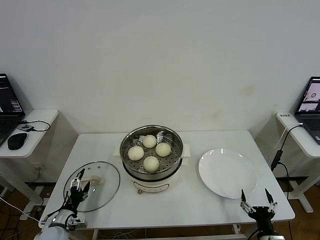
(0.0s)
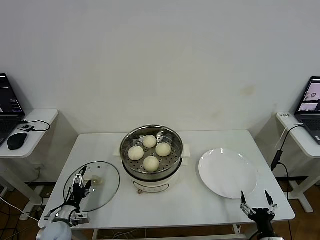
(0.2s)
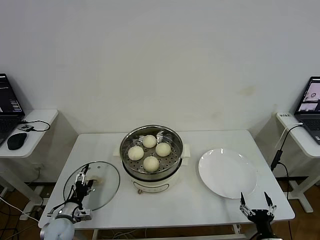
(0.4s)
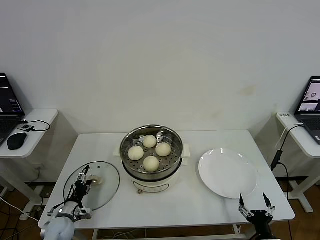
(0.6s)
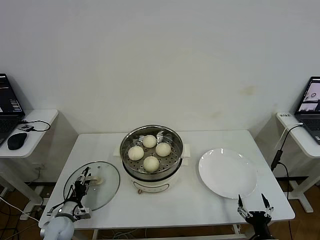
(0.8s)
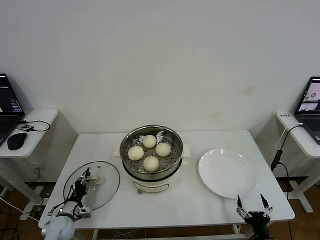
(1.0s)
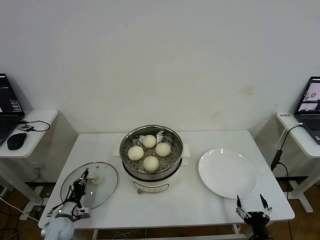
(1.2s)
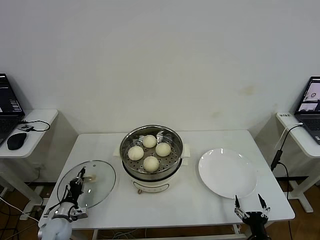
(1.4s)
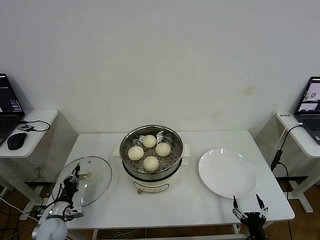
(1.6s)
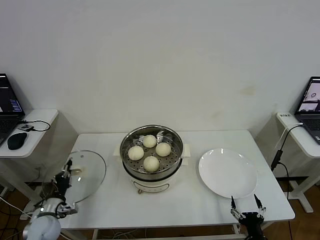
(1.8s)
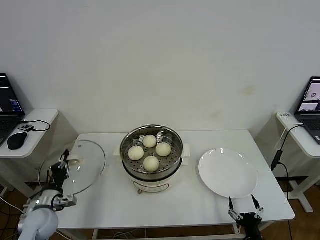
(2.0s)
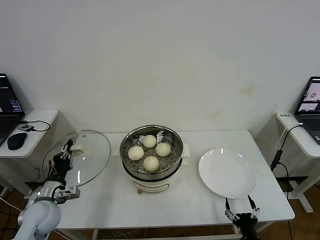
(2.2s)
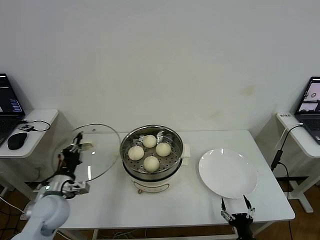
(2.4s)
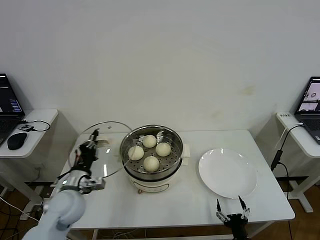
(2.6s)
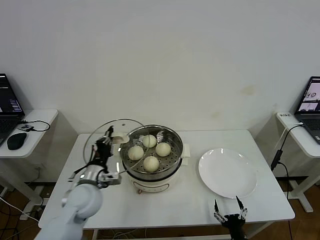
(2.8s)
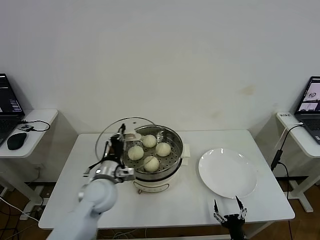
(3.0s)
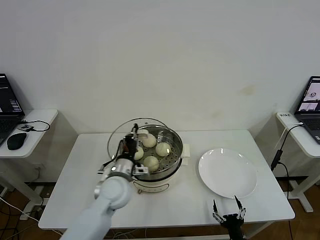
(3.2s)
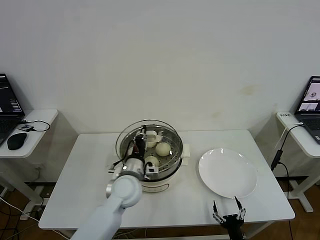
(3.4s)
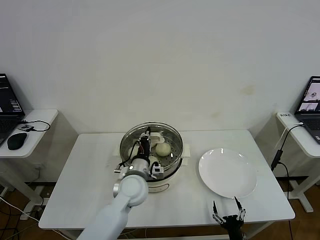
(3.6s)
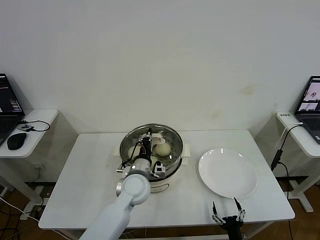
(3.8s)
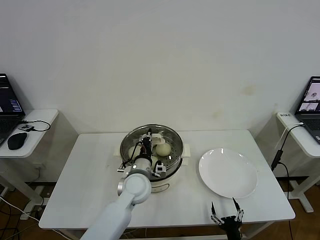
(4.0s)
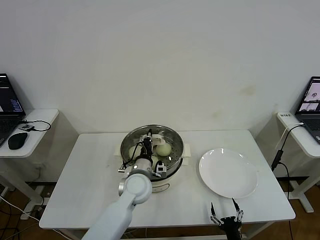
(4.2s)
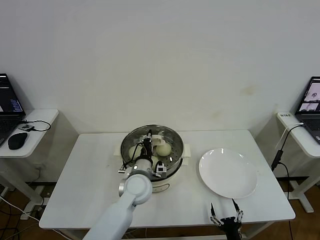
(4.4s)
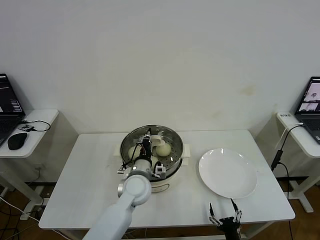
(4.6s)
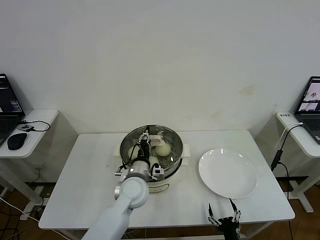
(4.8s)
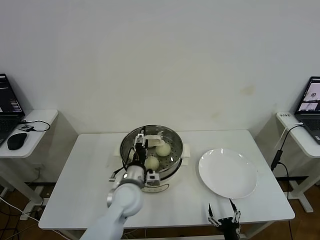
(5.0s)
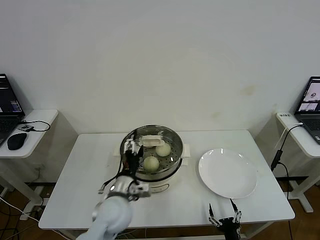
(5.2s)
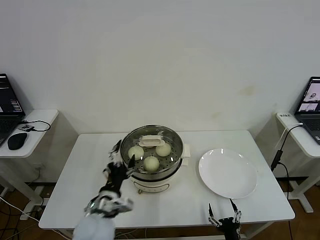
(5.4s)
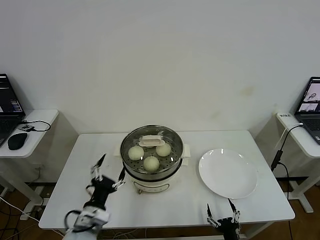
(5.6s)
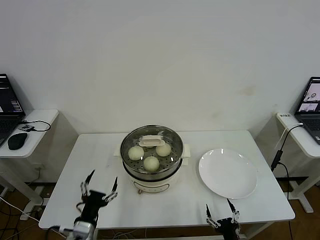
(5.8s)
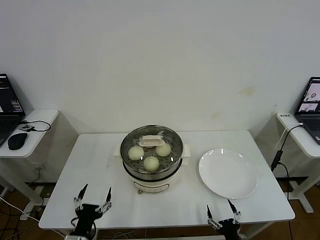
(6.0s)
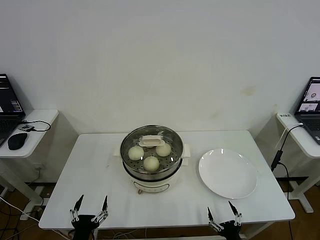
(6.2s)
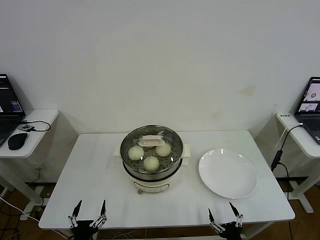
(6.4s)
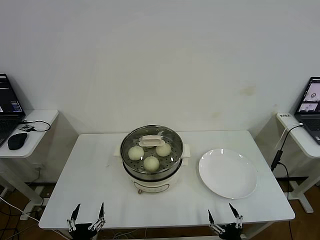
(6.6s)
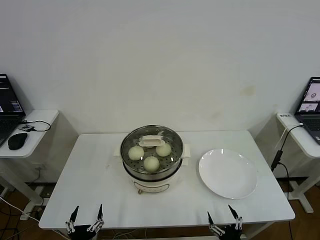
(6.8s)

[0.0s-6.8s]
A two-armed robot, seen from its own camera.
Step, 1.4s to 5.0s: Place the pot lid on the steamer with left gripper.
0.0s to 1.4s: The left gripper changes place by roughly 5 cm, and closes its fingers.
1.4s to 2.8s: The left gripper heads upward and to the right, covering roughly 25 cm, while the right gripper travels to the left by some 5 cm.
2.8s to 4.0s: The left gripper moves to the right, some 15 cm.
4.0s to 5.4s: The left gripper travels backward and to the left by roughly 15 cm, and opens up.
5.4s to 6.8s: The left gripper travels backward, downward and to the left by some 25 cm.

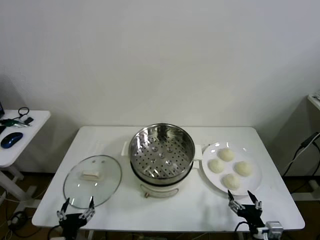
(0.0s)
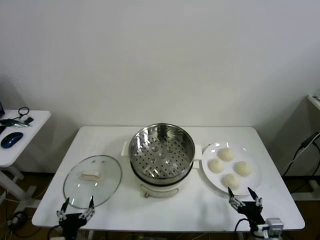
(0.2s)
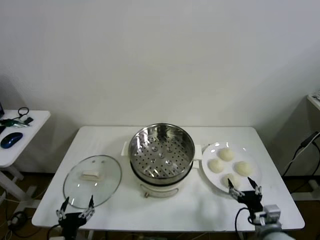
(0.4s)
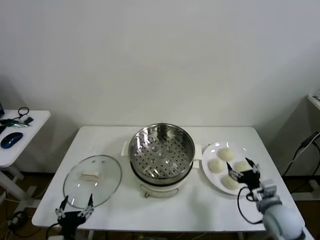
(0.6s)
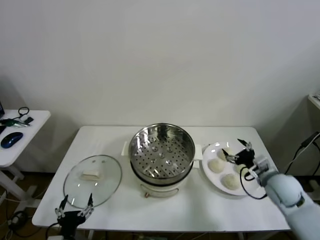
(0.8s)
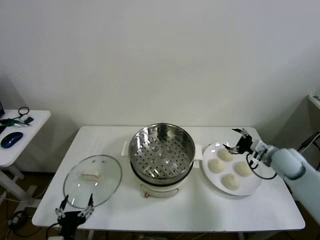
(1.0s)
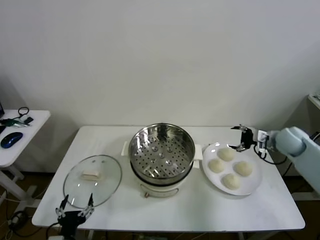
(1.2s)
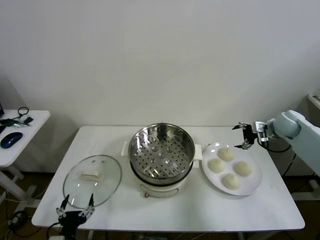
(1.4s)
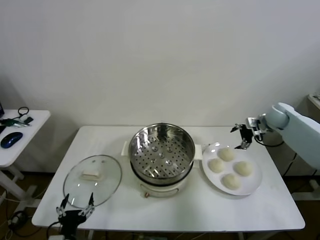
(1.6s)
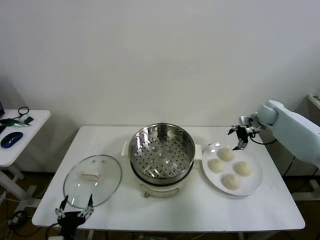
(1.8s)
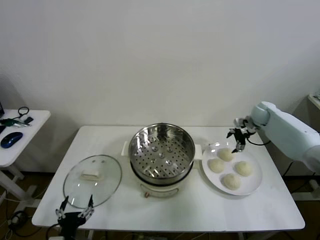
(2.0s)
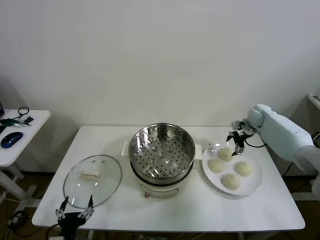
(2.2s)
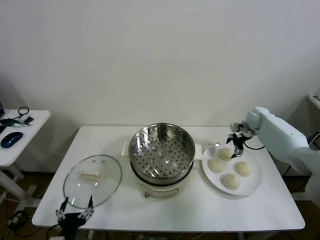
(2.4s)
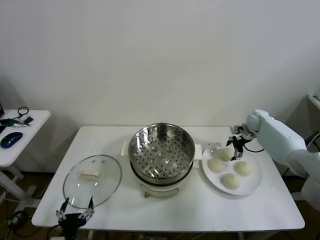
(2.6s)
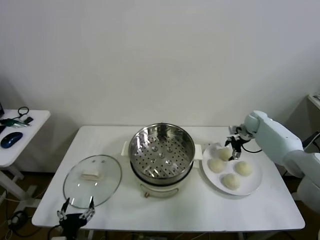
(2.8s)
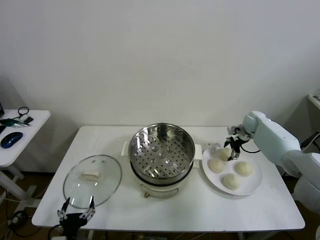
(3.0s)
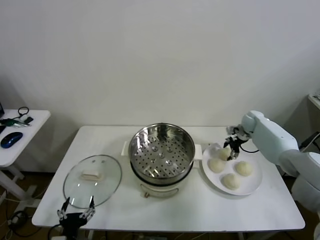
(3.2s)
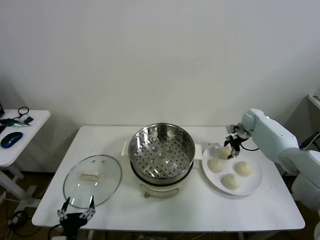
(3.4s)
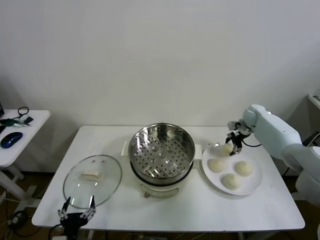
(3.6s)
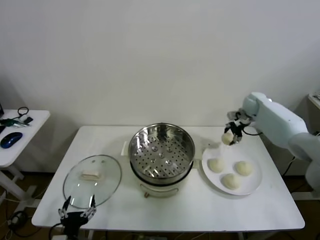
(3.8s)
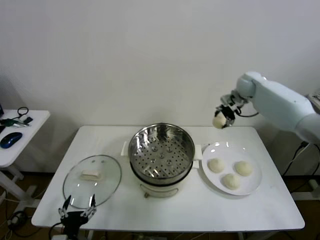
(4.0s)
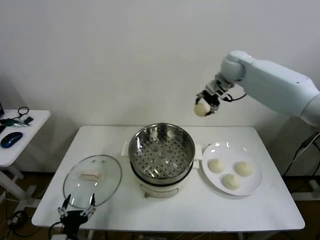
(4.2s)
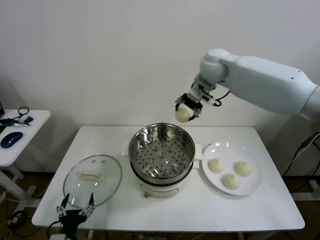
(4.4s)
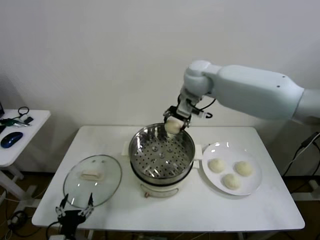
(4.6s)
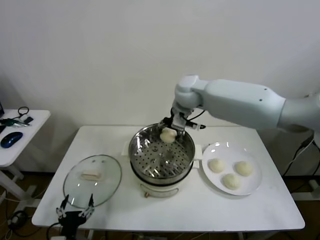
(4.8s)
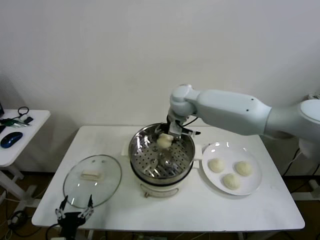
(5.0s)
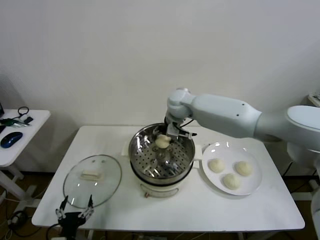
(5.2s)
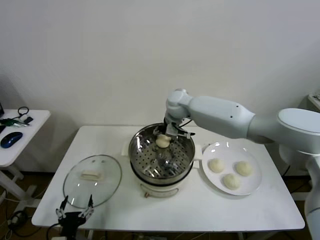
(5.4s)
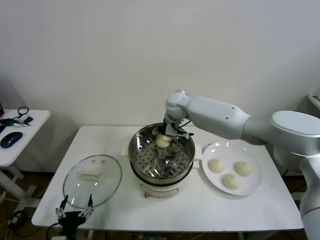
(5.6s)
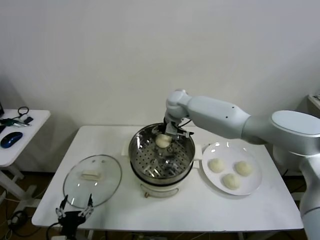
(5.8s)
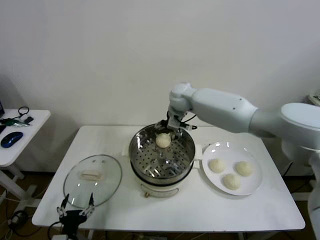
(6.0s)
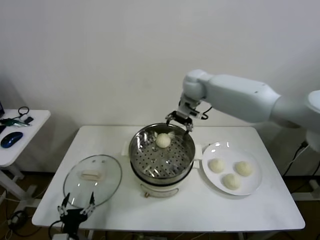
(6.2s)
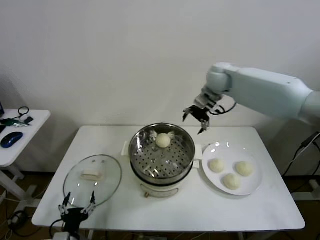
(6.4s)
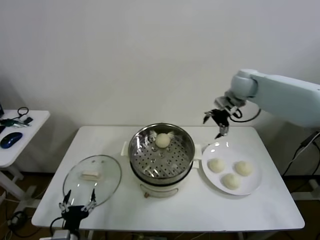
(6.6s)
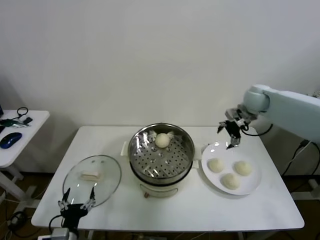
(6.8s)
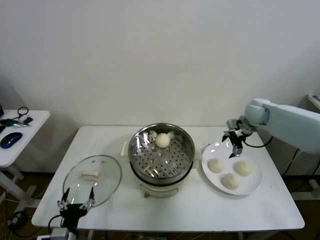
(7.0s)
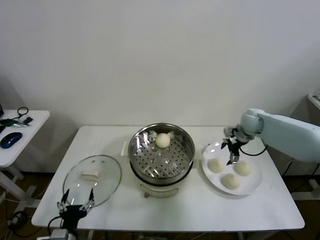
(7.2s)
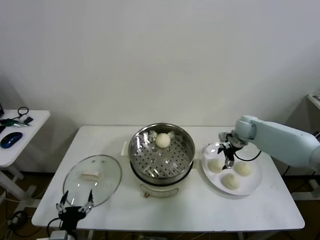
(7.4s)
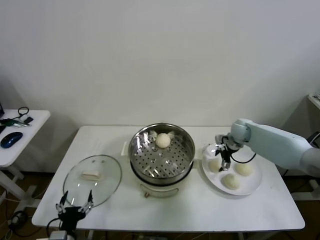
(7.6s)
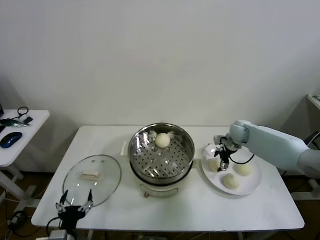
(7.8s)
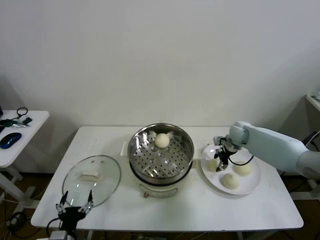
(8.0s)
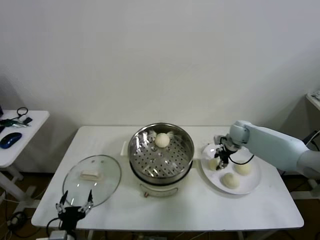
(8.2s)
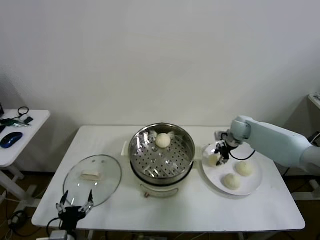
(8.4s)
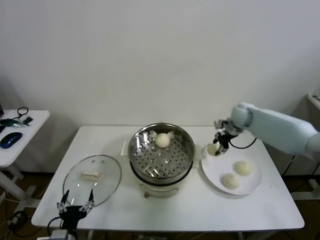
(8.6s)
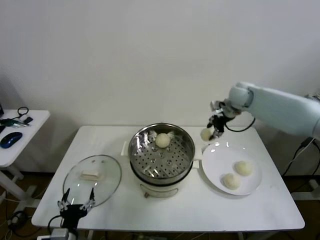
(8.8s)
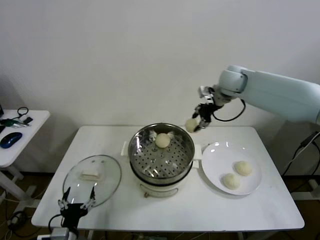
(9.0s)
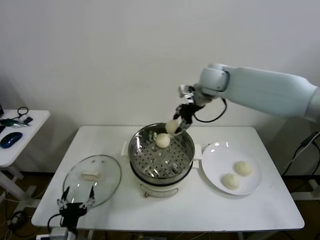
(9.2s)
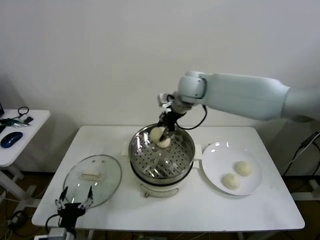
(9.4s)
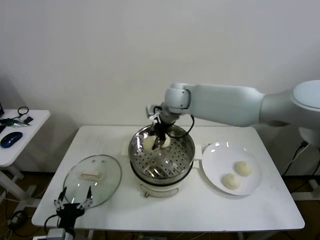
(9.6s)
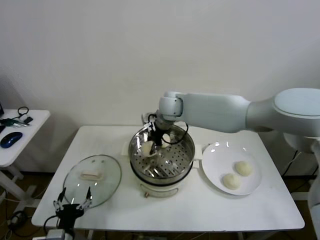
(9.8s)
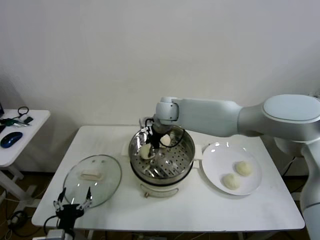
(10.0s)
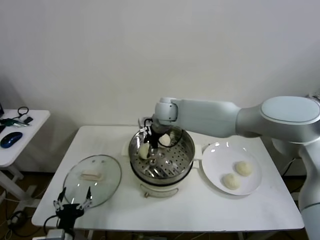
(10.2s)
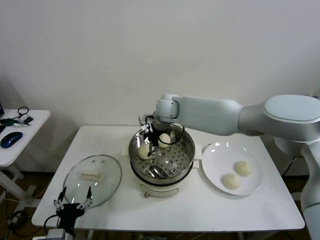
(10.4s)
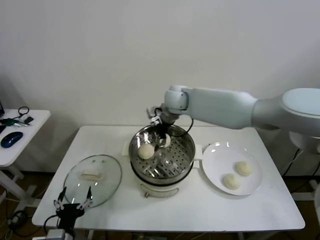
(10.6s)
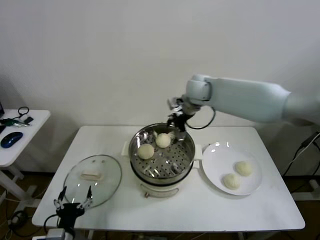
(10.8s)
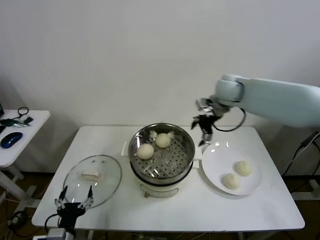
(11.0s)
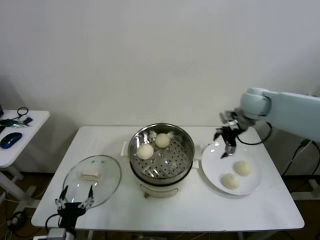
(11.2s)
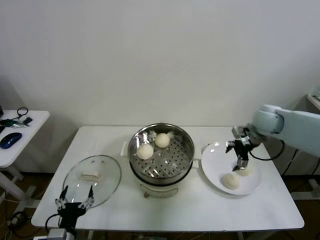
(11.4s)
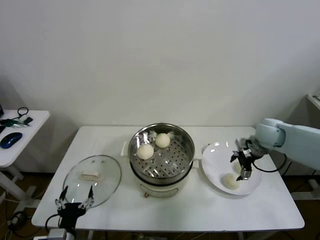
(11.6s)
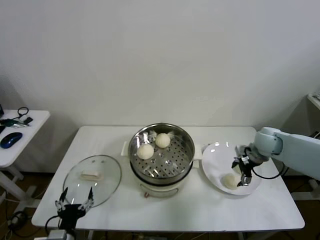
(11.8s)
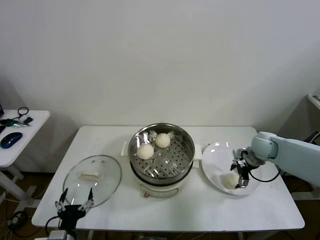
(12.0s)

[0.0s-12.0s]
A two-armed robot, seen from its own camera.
Step, 0.0s to 3.2s: Grasp the baozi in the plate with right gripper.
Step, 3.4s to 5.6s: Place the baozi on the steamer with right gripper.
Step, 5.8s to 8.0s: Grasp the baozi in the plate with right gripper.
Step, 8.2s to 10.2s: Place the baozi on the steamer with right gripper.
1.6s to 3.0s: The right gripper travels downward by some 10 cm.
3.0s to 4.4s: The right gripper moves upward and to the left, approximately 40 cm.
4.4s to 6.0s: The right gripper moves downward, some 10 cm, and opens up.
6.0s to 7.6s: The right gripper travels to the right and downward by about 30 cm.
7.6s to 9.0s: The right gripper moves upward and to the left, approximately 25 cm, and closes its fingers.
9.0s to 10.4s: The right gripper shifts approximately 20 cm to the left and downward, and opens its fingers.
10.4s to 12.0s: The right gripper moves to the right, about 35 cm.

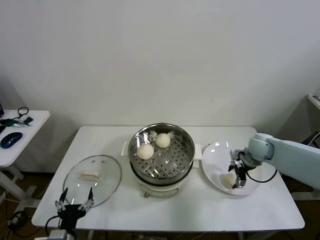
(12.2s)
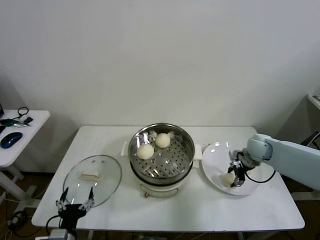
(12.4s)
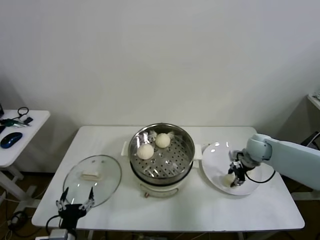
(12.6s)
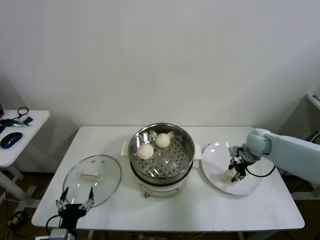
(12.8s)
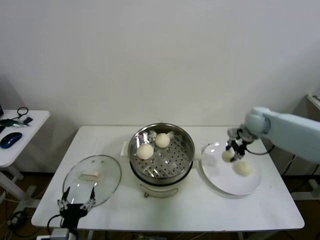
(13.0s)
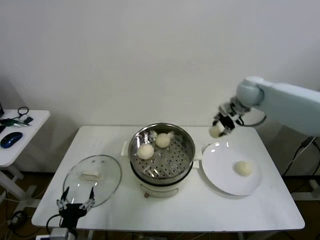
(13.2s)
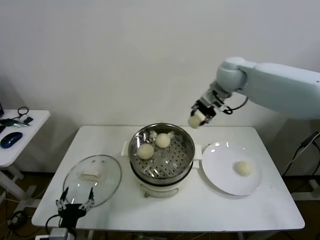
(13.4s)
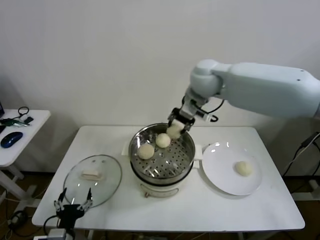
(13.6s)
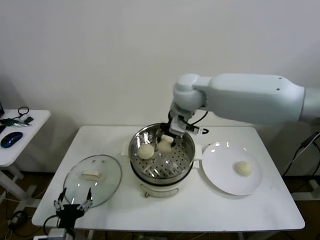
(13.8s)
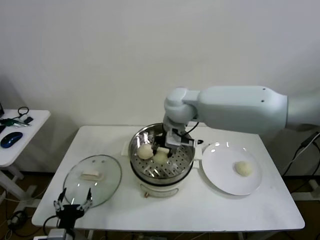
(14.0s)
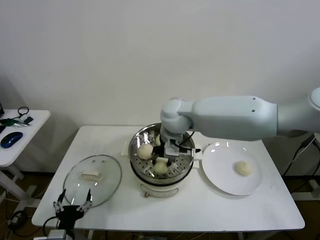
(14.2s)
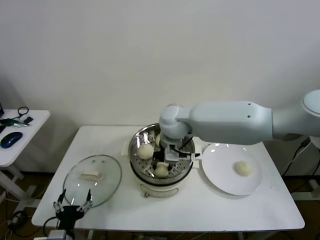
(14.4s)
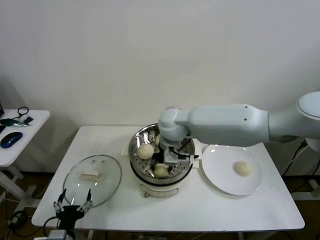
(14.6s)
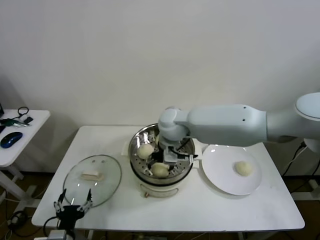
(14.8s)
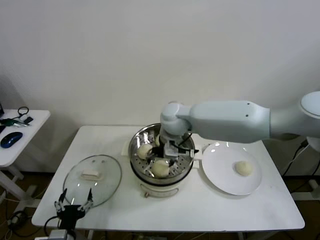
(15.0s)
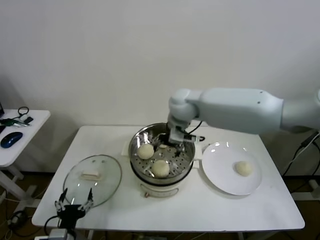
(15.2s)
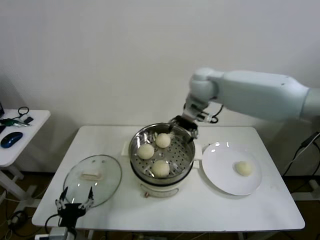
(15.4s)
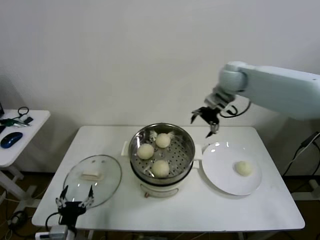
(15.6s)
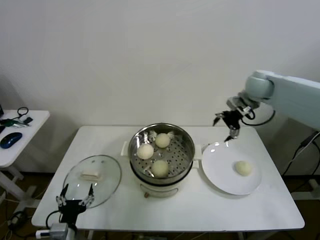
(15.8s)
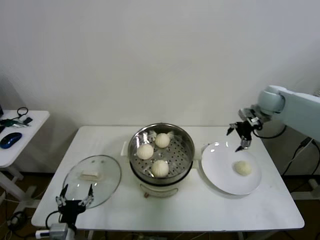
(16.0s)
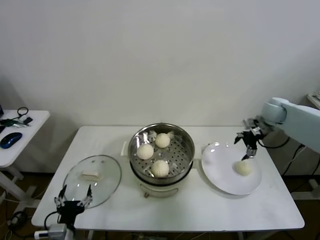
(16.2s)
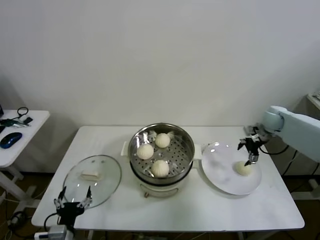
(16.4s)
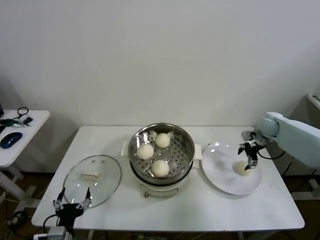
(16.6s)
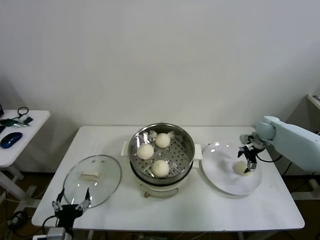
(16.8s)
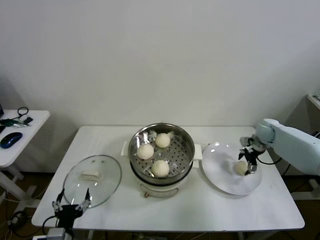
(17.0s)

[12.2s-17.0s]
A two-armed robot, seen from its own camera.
Step, 12.6s to 14.6s: Place the baozi on the steamer with right gripper.
12.2s to 13.8s: The right gripper is displaced to the left and upward by roughly 40 cm, and closes its fingers.
13.8s to 15.4s: The right gripper goes about 10 cm to the right and forward, and opens.
15.4s to 17.0s: The right gripper heads to the right and downward, covering some 35 cm.
